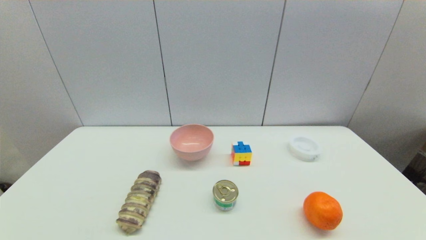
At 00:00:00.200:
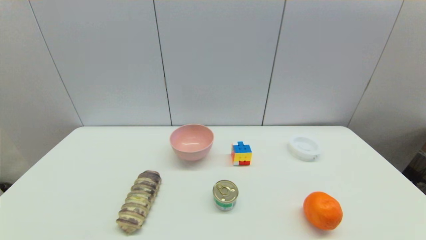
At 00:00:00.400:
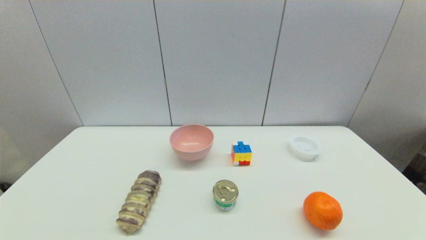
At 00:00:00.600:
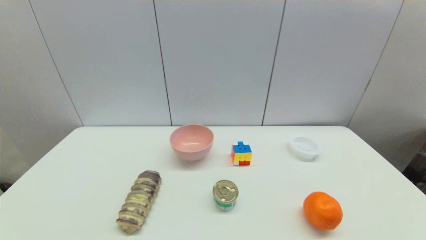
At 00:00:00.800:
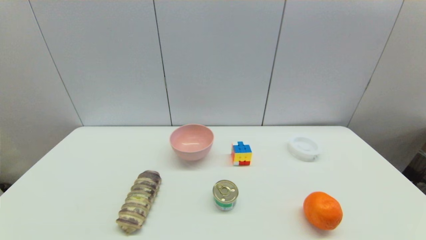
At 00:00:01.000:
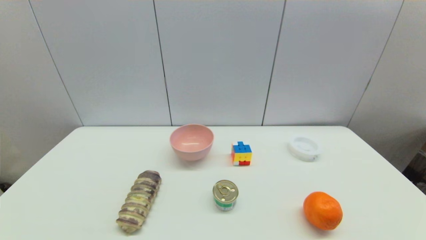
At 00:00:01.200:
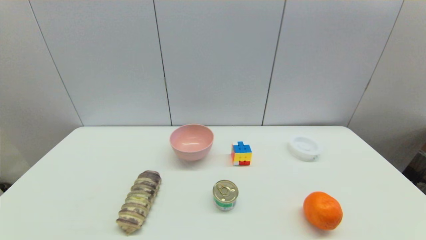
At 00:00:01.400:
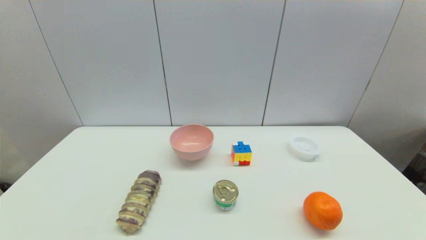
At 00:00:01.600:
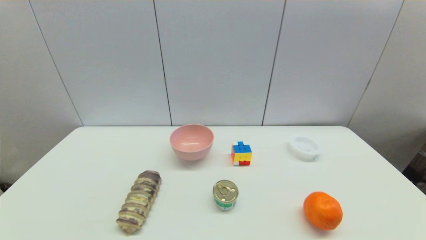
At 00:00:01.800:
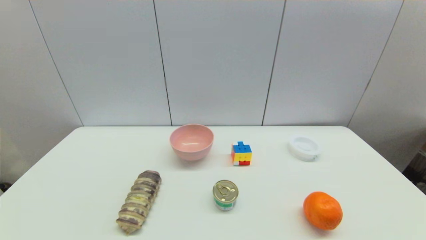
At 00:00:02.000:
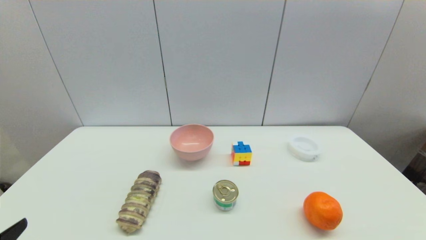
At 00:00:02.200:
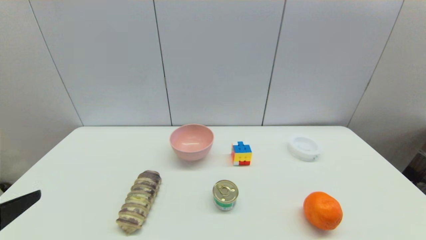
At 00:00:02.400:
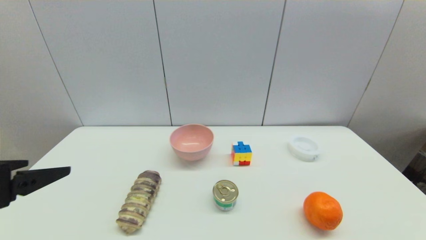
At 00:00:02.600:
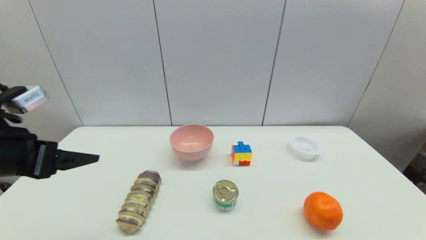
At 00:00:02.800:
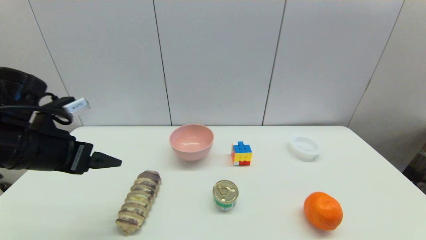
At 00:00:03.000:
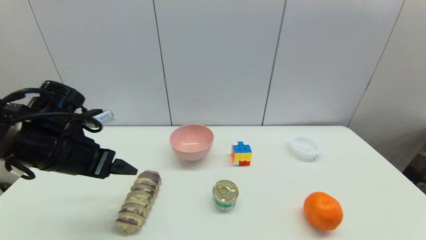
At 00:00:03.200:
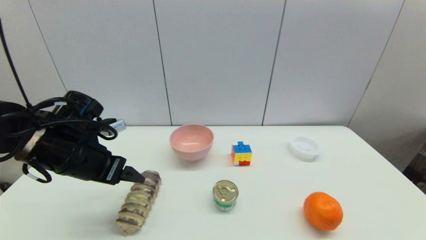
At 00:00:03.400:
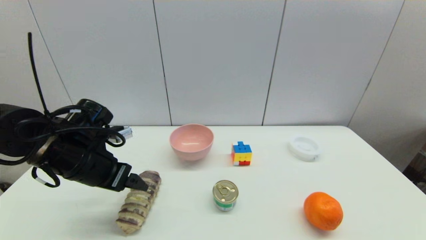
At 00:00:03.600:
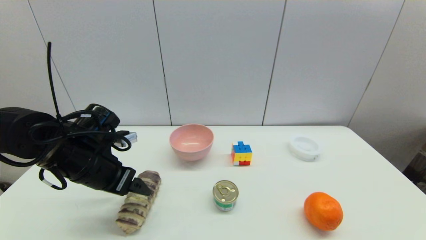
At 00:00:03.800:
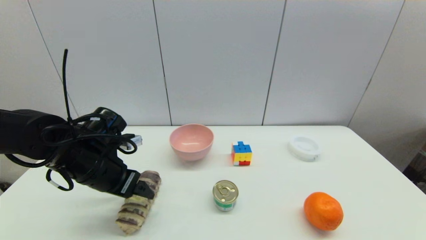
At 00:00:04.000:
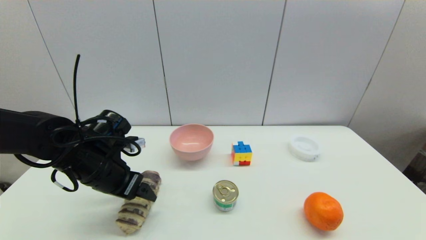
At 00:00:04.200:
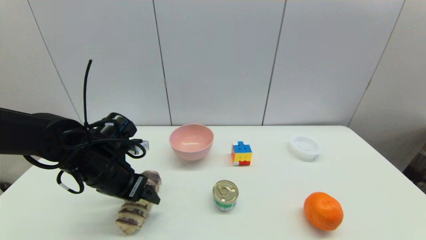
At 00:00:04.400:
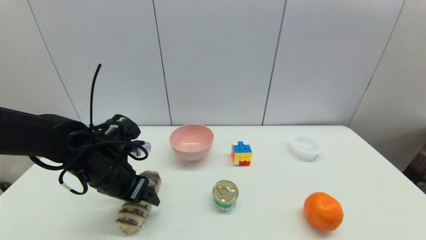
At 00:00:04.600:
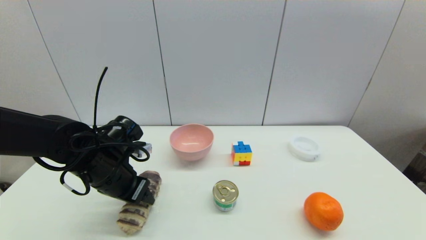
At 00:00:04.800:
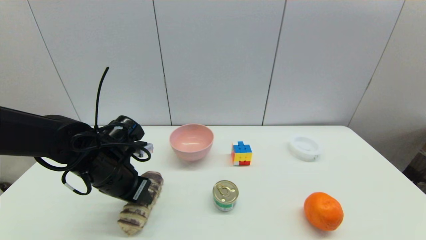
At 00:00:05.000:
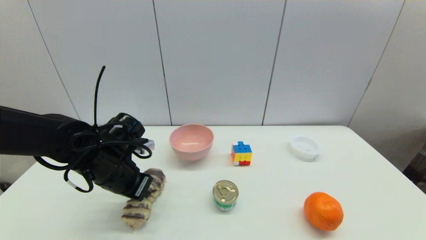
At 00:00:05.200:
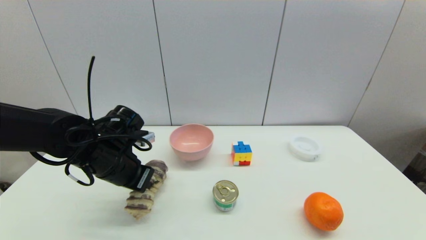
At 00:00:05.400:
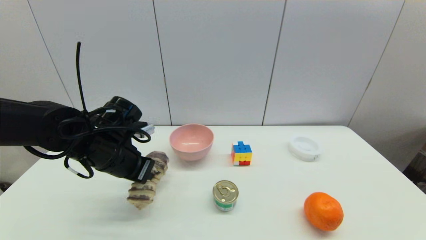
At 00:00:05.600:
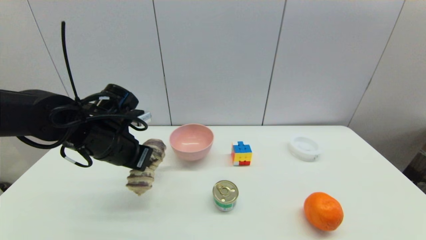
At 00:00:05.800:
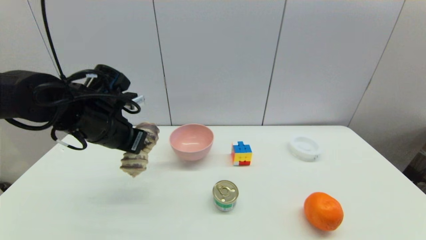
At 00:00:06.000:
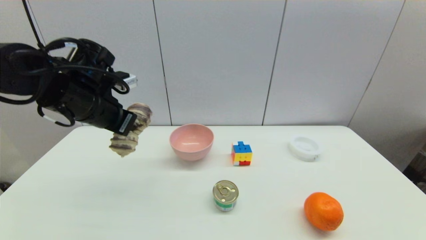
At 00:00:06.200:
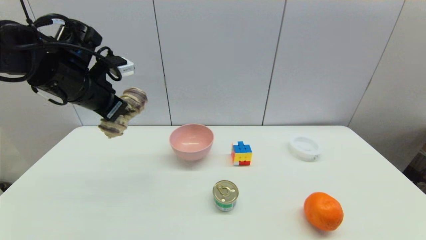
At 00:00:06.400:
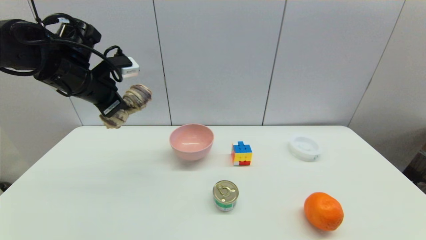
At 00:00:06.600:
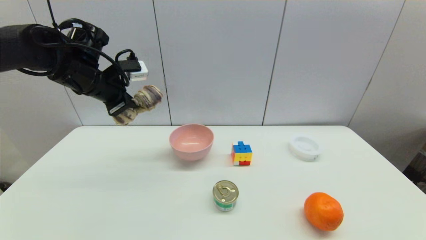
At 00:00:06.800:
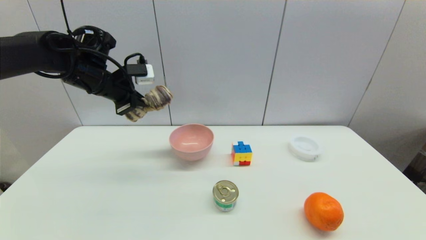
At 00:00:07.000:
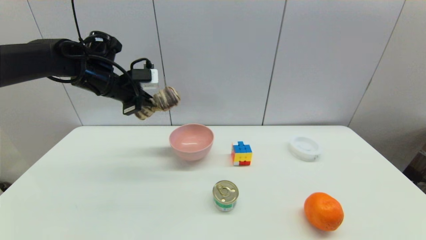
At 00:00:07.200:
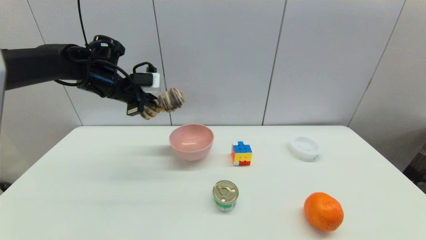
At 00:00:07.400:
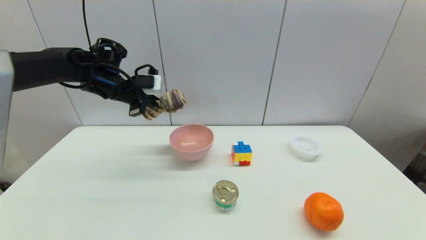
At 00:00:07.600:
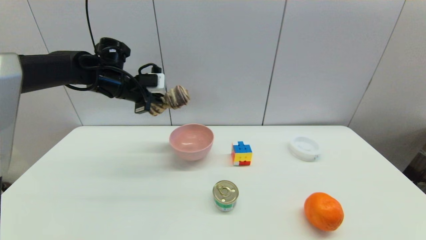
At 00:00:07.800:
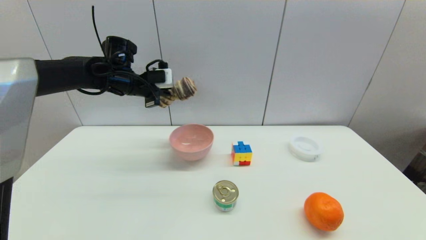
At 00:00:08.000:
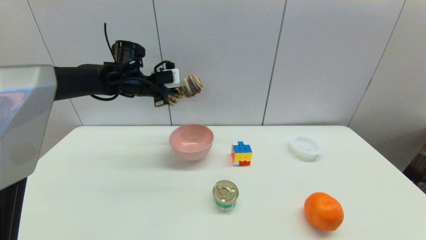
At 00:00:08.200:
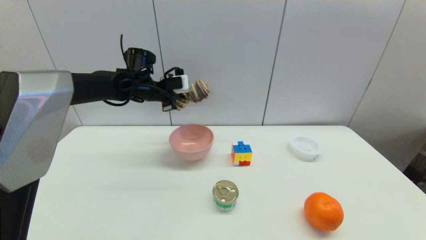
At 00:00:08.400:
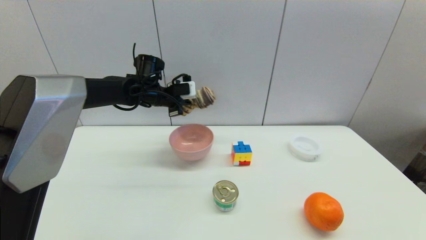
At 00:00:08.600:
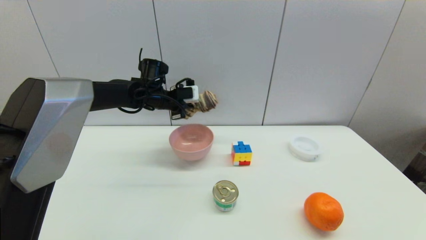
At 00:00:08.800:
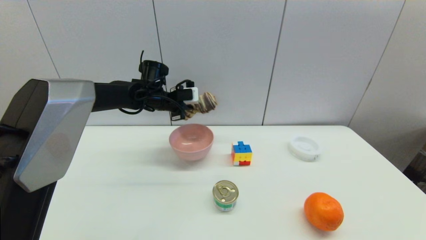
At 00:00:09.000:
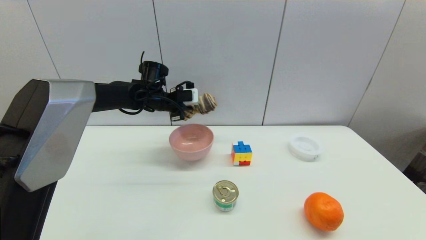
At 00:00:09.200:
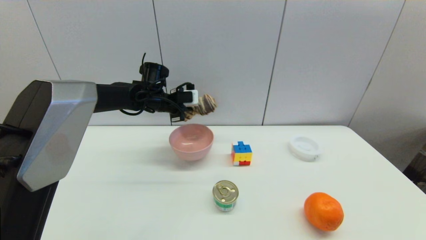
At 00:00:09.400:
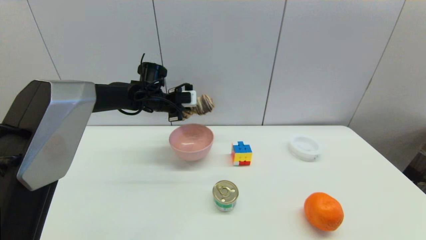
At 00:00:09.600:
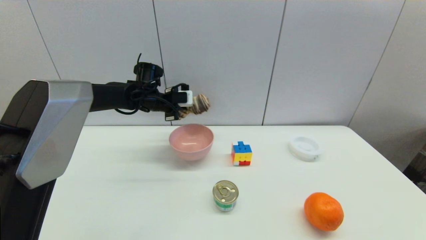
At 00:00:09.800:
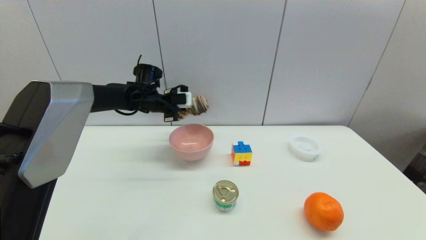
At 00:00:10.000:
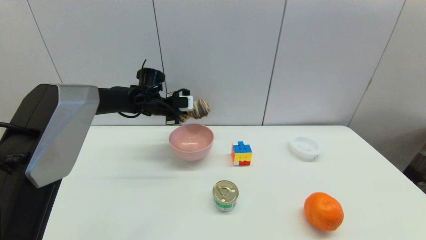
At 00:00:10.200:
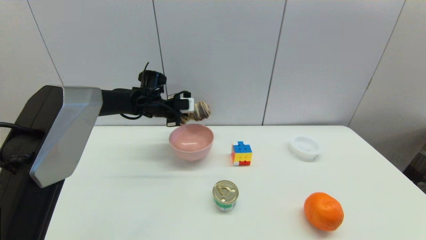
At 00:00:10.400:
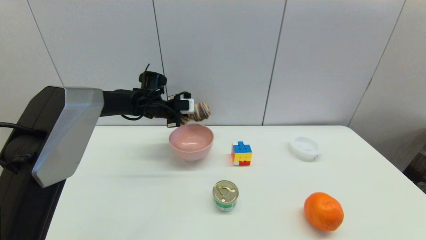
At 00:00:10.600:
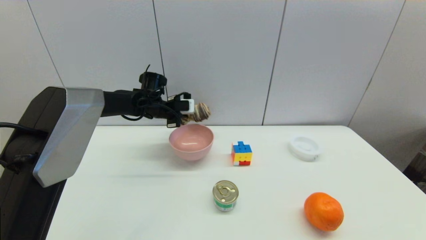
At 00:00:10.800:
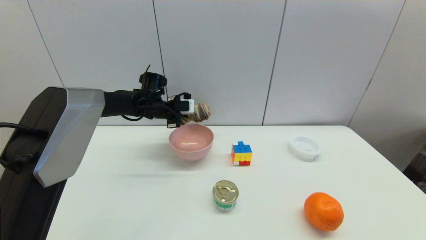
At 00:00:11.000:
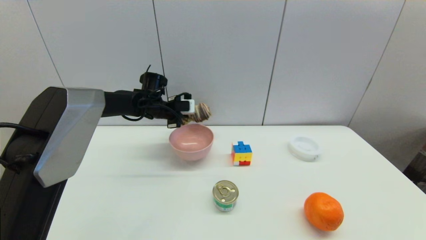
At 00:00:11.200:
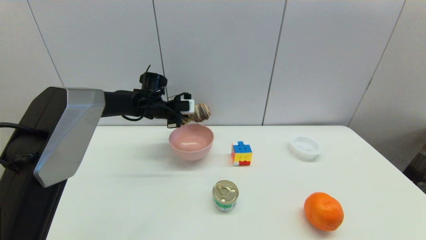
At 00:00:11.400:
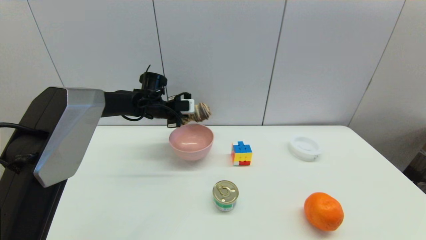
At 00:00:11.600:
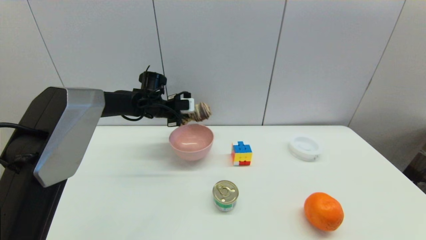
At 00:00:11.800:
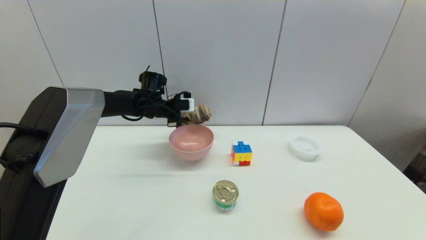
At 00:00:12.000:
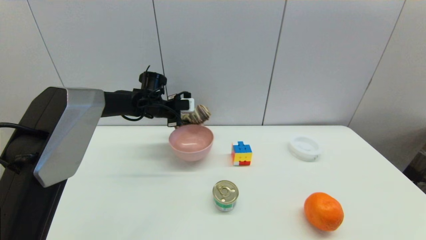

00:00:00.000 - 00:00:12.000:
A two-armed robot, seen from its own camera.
Step, 00:00:02.000 - 00:00:04.800: Grasp the long bread with left gripper.
00:00:01.600 - 00:00:03.000: The left gripper shifts approximately 25 cm forward.
00:00:03.000 - 00:00:04.400: The left gripper travels downward by about 5 cm.
00:00:04.400 - 00:00:06.000: The left gripper heads upward, covering approximately 15 cm, and closes.
00:00:06.000 - 00:00:07.600: The left gripper travels forward by roughly 10 cm.
00:00:07.600 - 00:00:09.000: The left gripper heads to the right and downward, covering some 10 cm.
00:00:09.000 - 00:00:10.400: The grippers move only a little.
00:00:10.400 - 00:00:12.000: The left gripper opens up.

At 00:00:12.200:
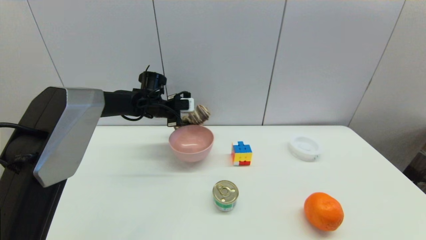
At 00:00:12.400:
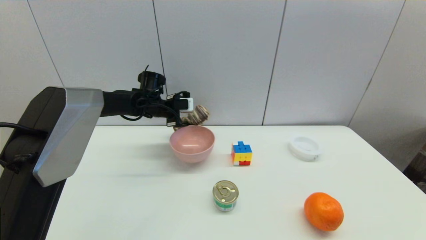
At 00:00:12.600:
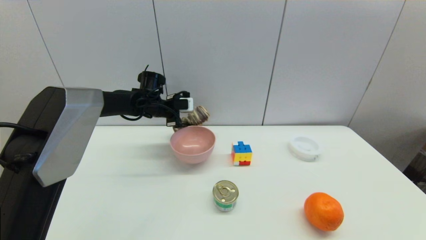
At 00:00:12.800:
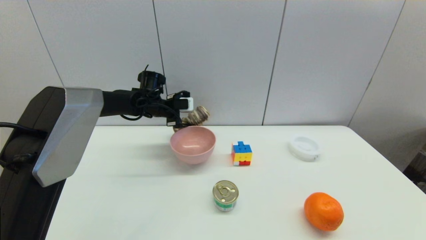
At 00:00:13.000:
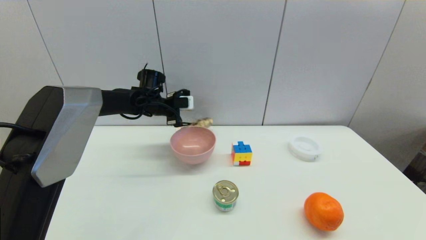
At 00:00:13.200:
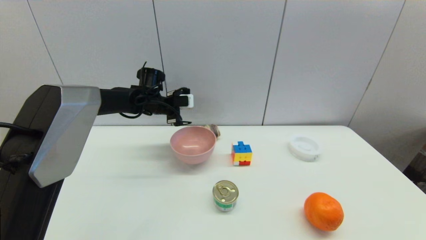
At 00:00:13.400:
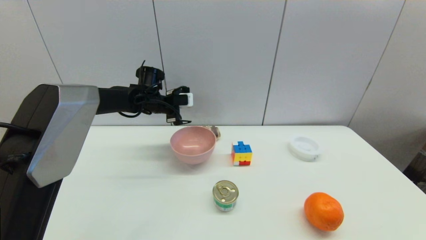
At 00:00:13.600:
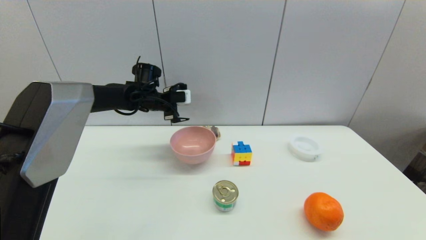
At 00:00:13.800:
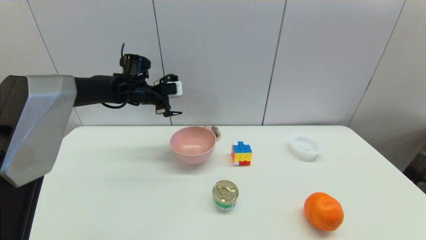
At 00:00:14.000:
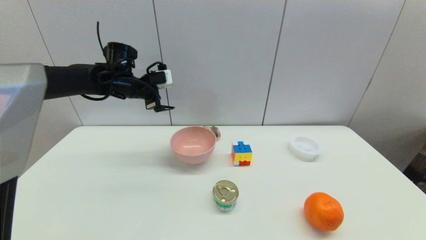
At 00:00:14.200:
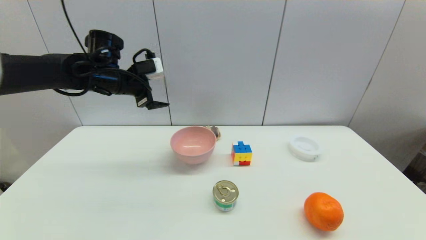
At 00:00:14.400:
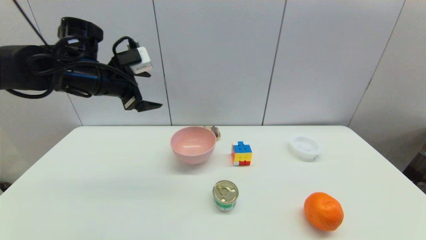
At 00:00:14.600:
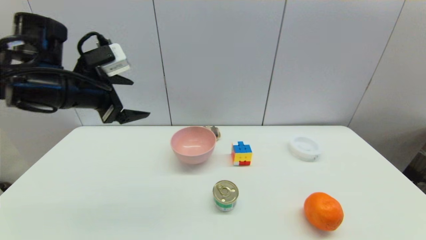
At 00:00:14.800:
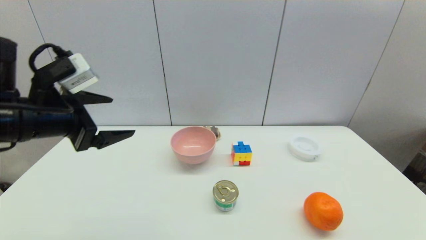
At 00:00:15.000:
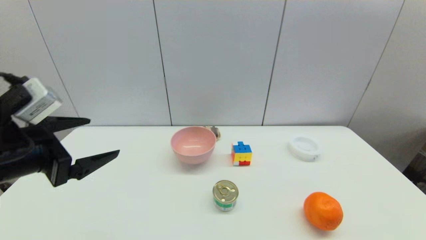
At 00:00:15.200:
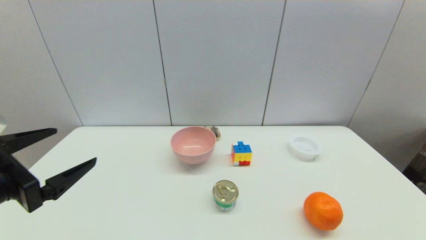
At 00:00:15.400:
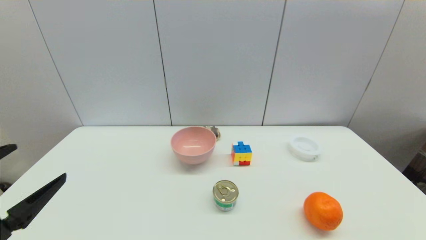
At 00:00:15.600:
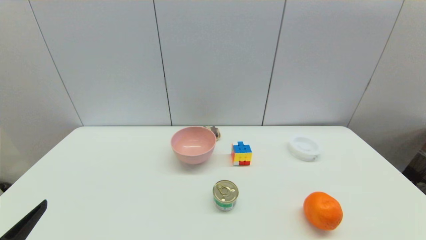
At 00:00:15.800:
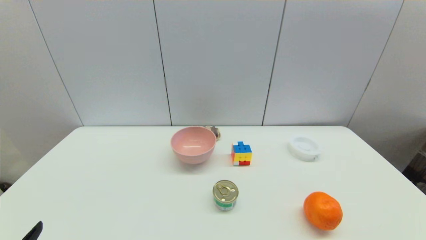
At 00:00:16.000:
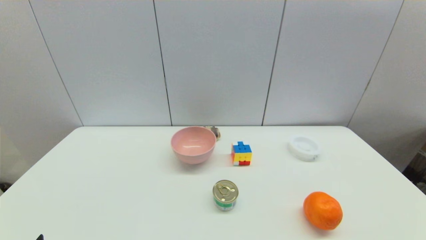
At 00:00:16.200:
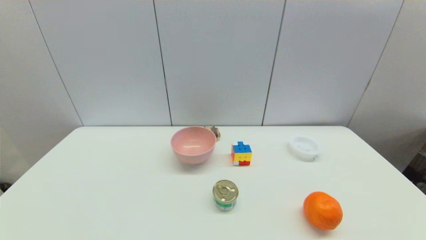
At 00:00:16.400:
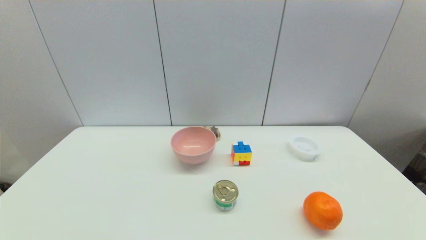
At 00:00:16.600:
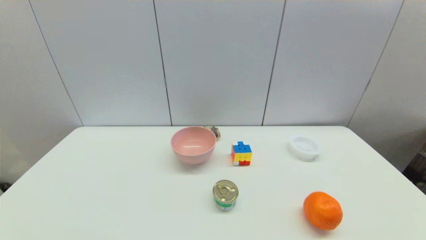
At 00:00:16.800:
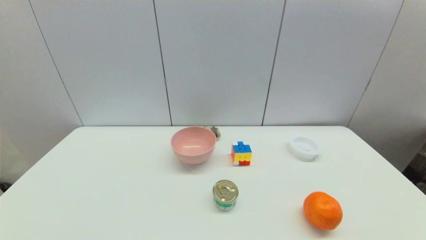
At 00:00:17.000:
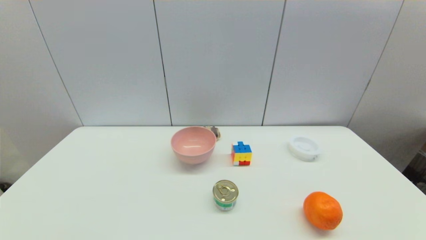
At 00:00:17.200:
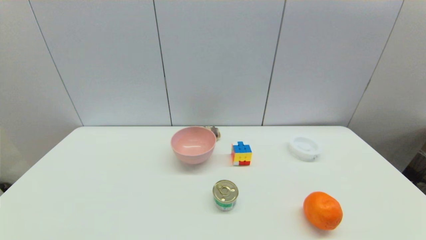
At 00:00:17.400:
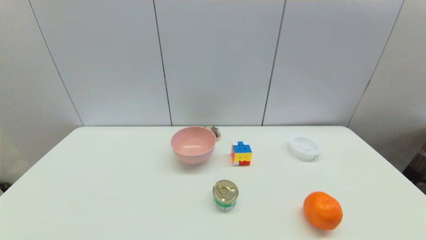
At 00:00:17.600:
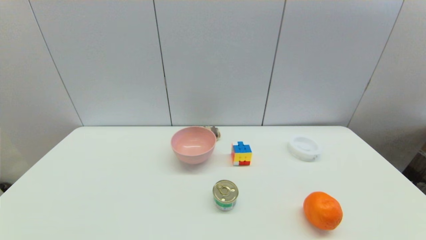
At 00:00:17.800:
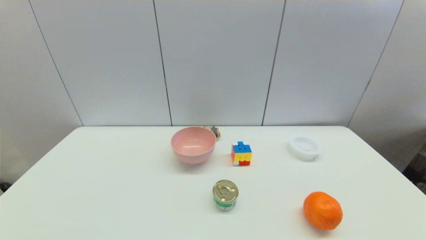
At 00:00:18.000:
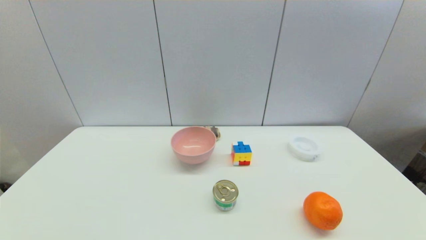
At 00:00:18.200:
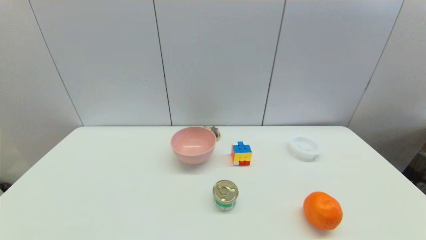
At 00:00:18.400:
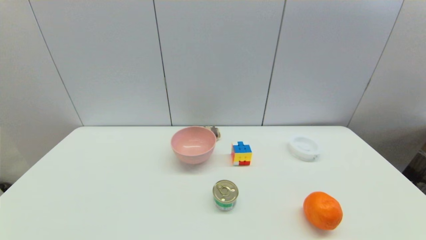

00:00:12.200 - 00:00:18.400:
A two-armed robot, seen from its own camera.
00:00:12.200 - 00:00:13.800: The left gripper shifts some 5 cm upward.
00:00:13.800 - 00:00:15.400: The left gripper goes roughly 40 cm backward.
00:00:15.400 - 00:00:16.800: The left gripper travels downward and backward by roughly 15 cm.
